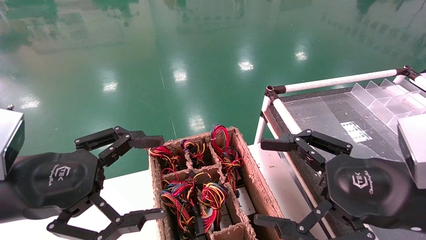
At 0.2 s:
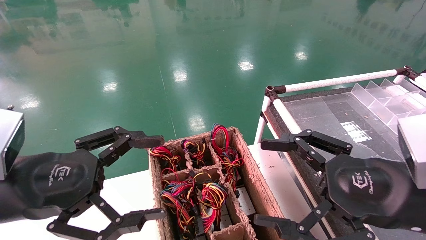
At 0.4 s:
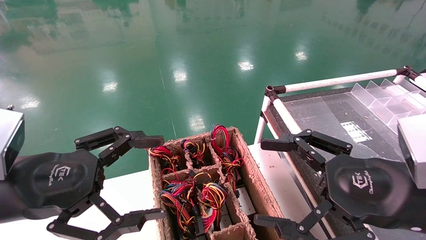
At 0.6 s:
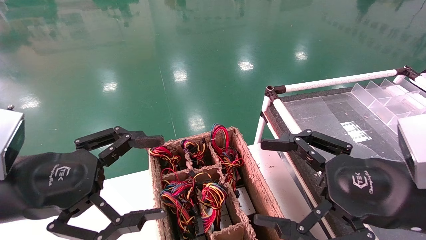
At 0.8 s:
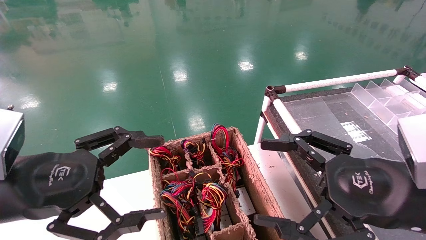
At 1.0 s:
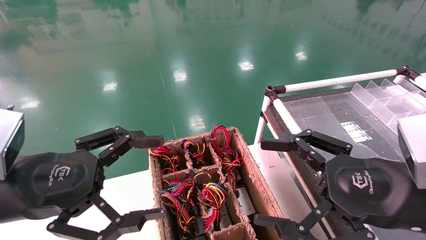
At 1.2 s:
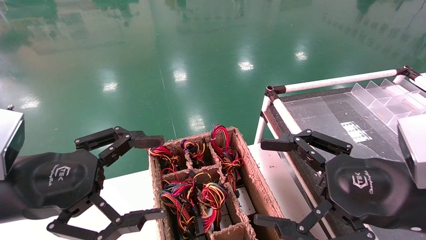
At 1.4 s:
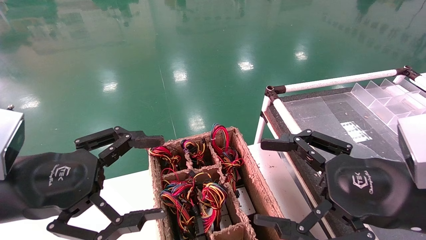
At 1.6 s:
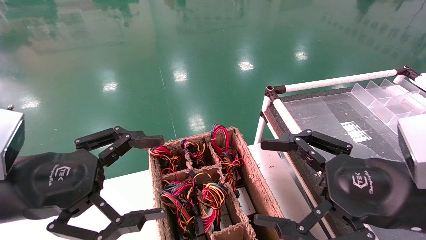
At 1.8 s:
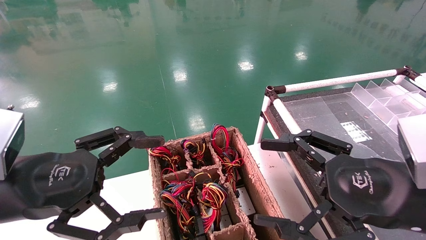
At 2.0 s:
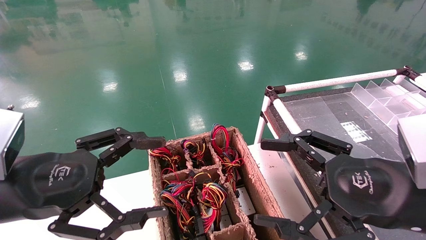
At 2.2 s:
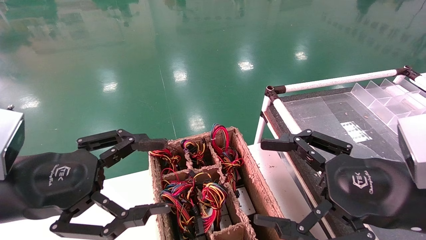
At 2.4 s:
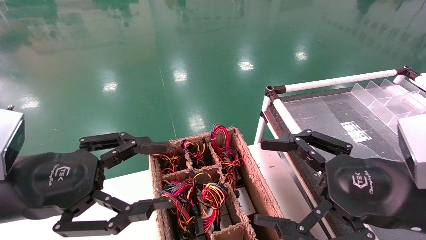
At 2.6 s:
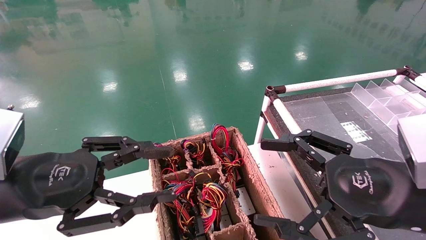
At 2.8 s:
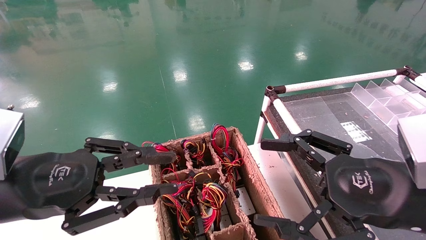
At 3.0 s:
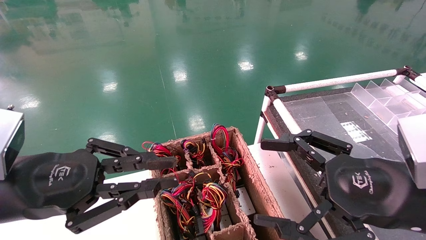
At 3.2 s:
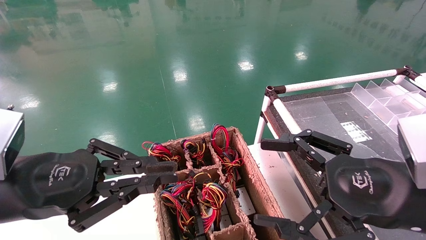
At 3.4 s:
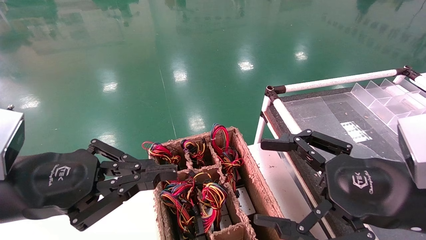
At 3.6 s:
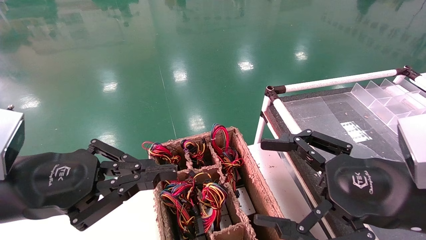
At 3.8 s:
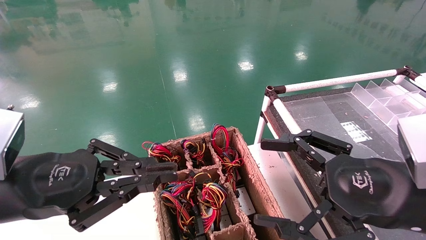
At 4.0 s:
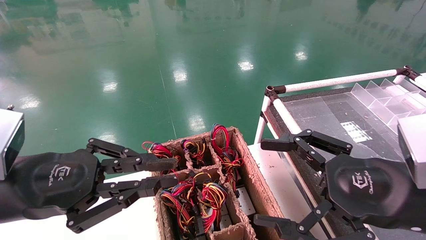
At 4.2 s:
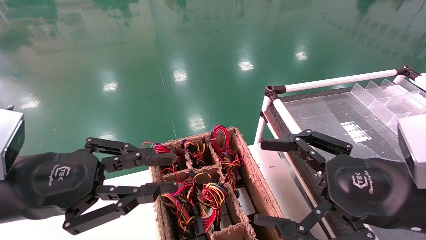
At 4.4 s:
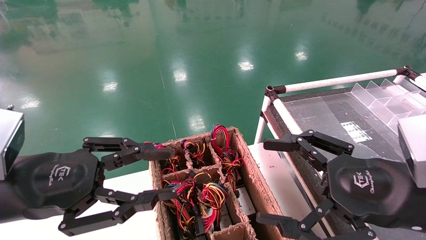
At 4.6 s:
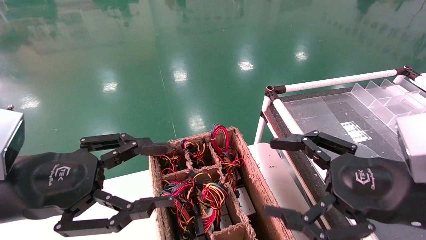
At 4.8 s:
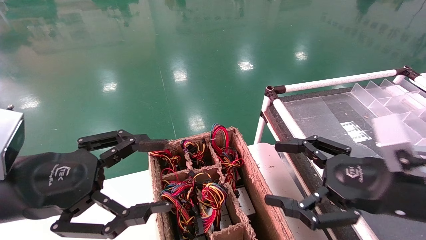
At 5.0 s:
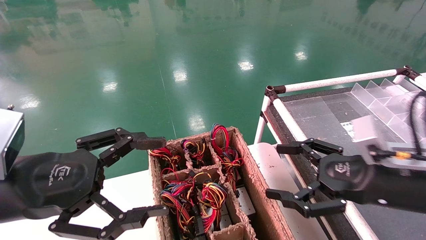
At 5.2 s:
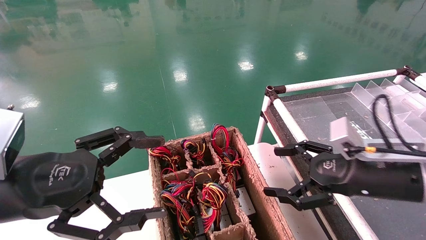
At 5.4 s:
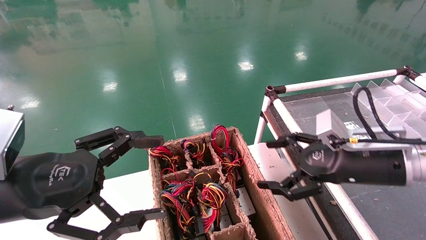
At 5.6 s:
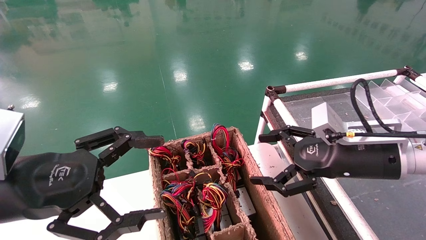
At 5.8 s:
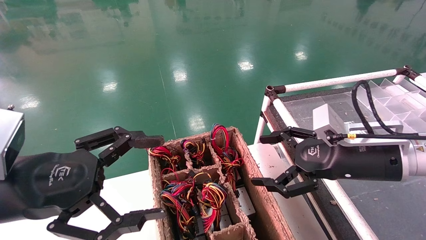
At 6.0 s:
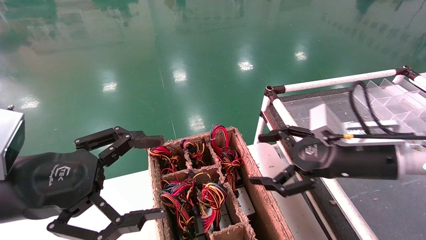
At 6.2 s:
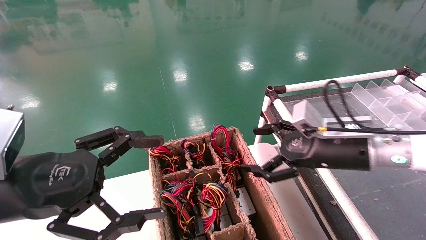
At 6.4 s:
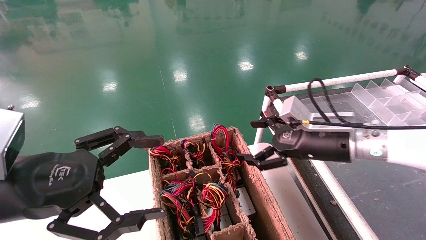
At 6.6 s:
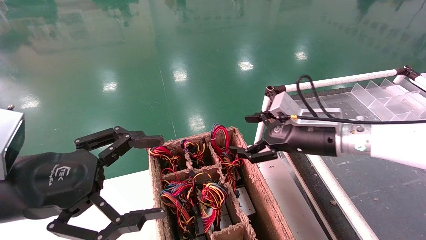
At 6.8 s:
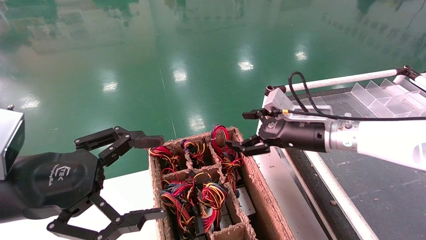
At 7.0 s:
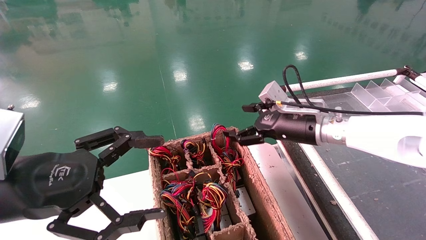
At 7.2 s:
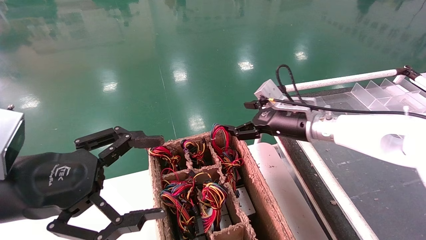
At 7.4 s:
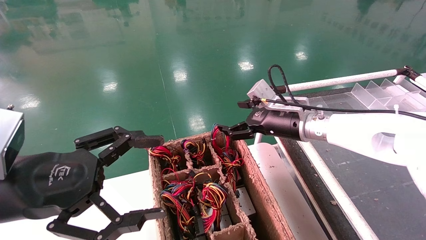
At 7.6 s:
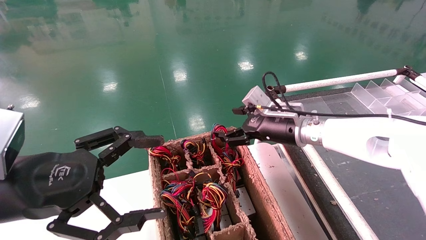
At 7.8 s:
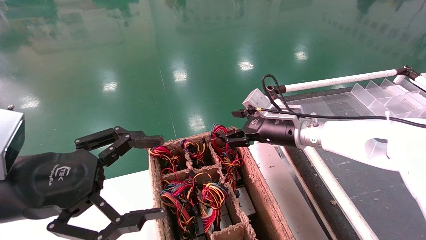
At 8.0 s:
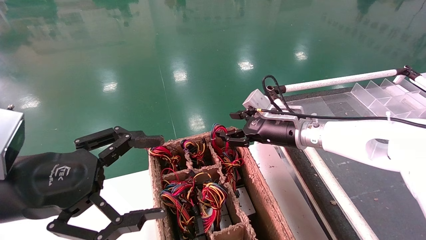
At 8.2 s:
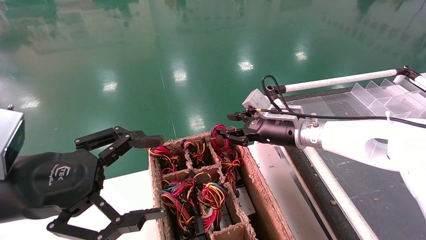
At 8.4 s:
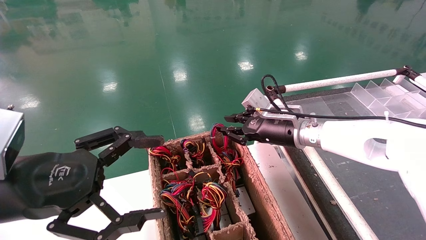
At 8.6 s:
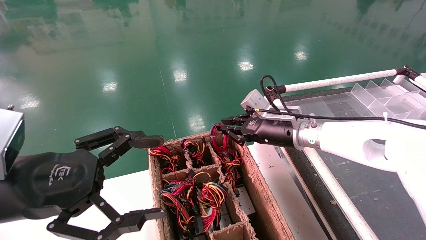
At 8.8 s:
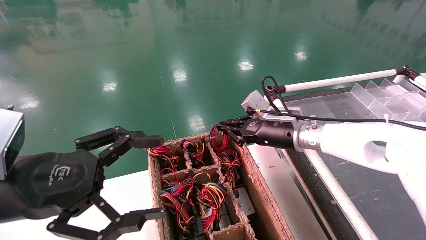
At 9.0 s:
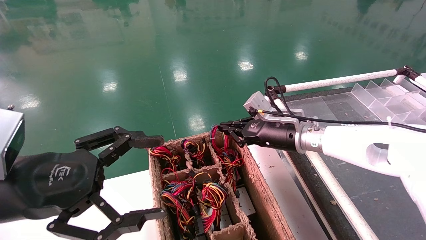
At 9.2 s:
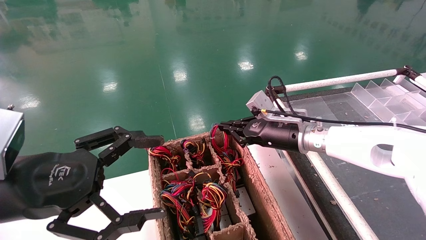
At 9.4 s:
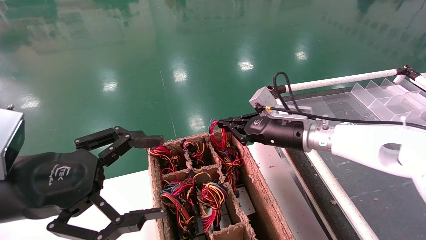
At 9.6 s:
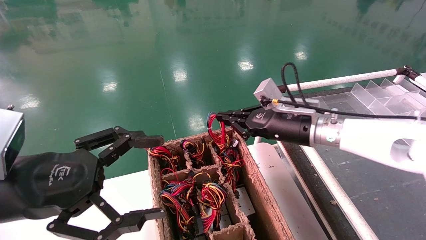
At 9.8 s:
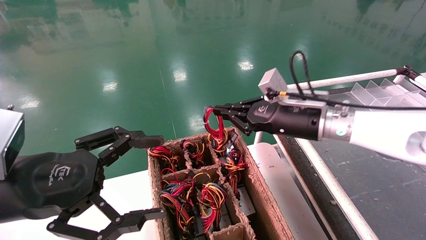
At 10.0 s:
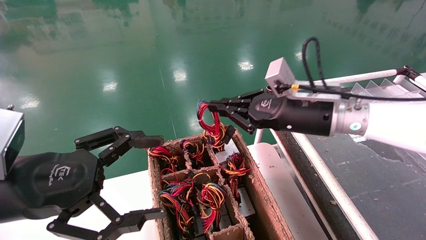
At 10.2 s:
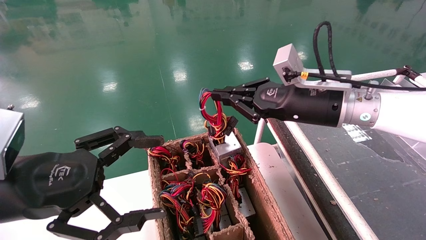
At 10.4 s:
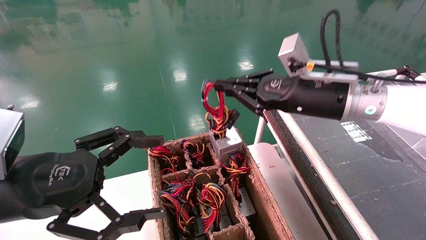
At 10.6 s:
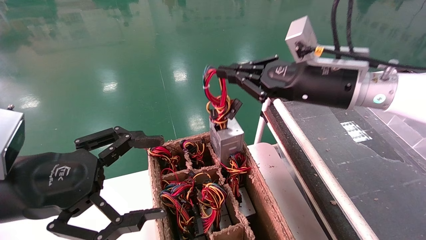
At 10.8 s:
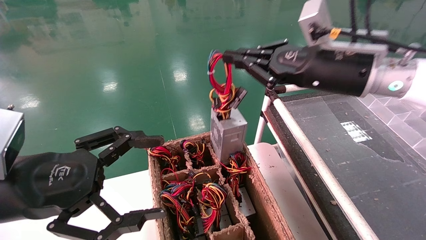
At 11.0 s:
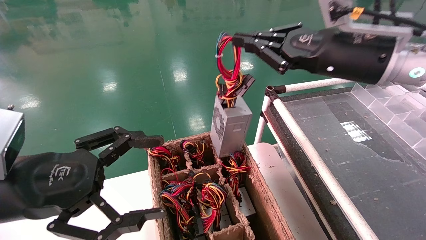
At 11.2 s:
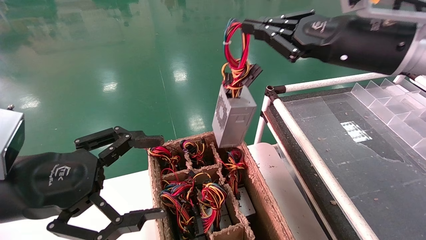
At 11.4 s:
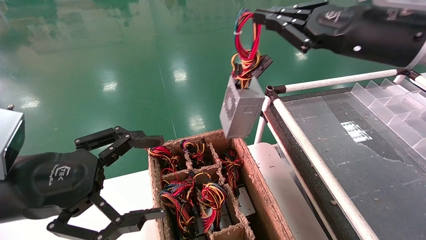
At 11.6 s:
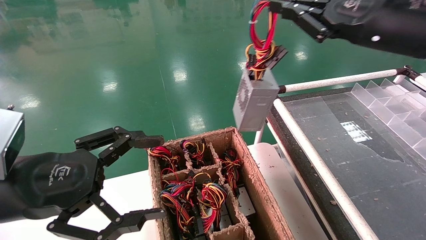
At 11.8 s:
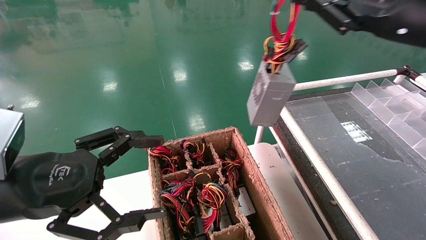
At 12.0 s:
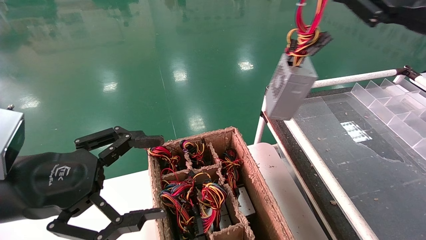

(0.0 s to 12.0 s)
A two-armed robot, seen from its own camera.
Step, 3.4 s - 9.0 s: Grab and lift the power supply from the large box.
0.0 s - 1.6 s: Neither gripper changes place.
1.6 s - 3.0 s: The left gripper closes its fingers.
3.0 s - 4.4 s: Neither gripper changes place.
4.4 s - 6.0 s: The left gripper opens its fingers. Meanwhile the right gripper shifts approximately 15 cm forward.
6.0 s - 7.6 s: The right gripper goes approximately 15 cm forward and to the left.
7.6 s - 9.0 s: The right gripper closes.
9.0 s - 10.4 s: The right gripper shifts roughly 15 cm upward and backward.
10.4 s - 12.0 s: The right gripper is displaced to the right, upward and backward by roughly 20 cm.

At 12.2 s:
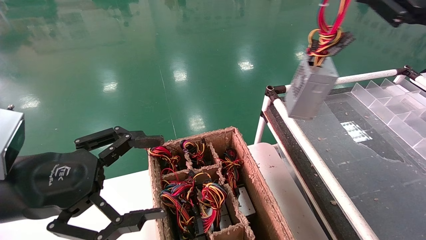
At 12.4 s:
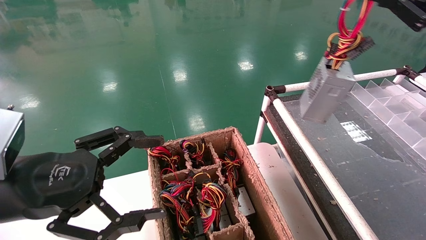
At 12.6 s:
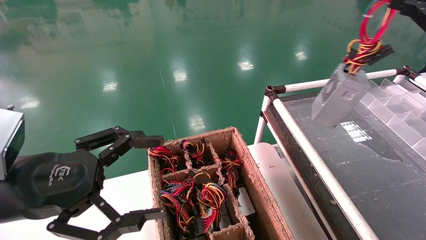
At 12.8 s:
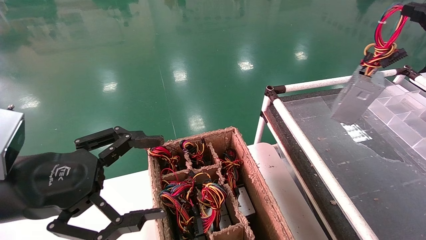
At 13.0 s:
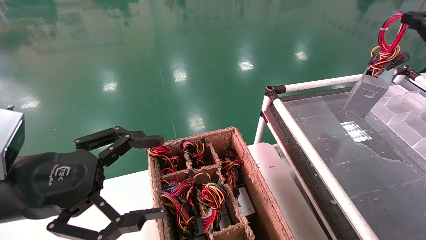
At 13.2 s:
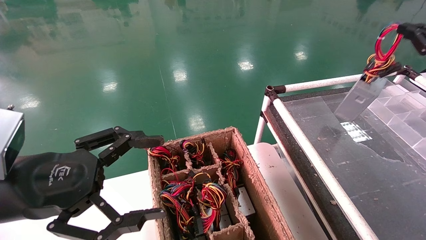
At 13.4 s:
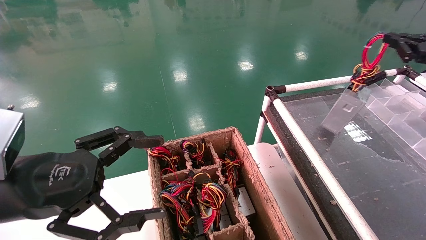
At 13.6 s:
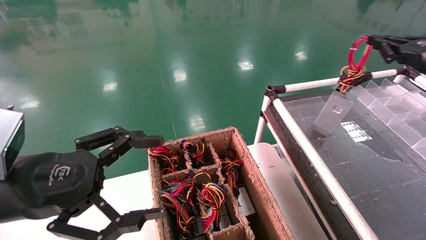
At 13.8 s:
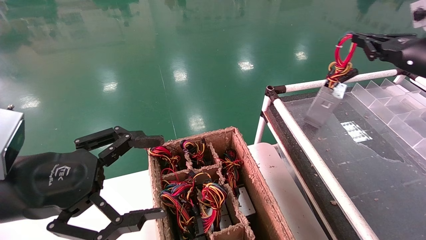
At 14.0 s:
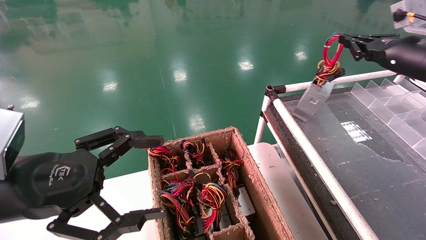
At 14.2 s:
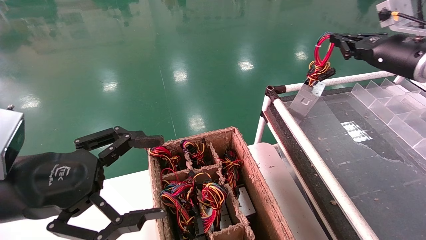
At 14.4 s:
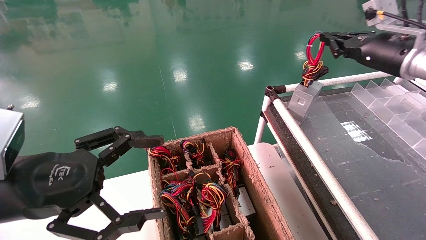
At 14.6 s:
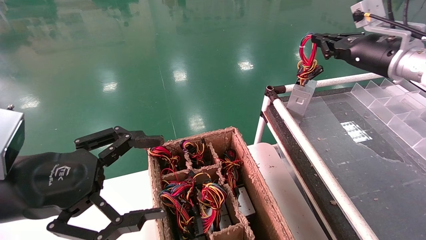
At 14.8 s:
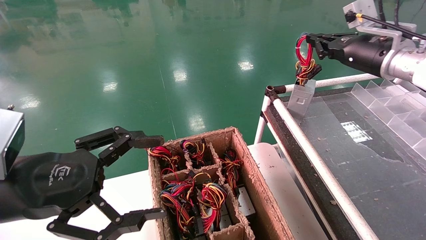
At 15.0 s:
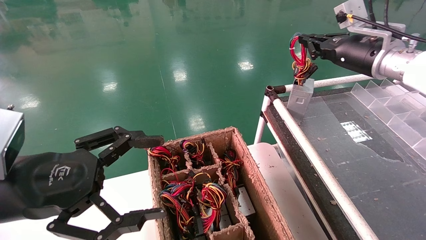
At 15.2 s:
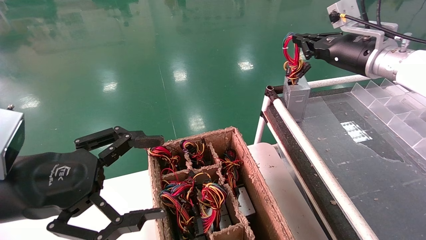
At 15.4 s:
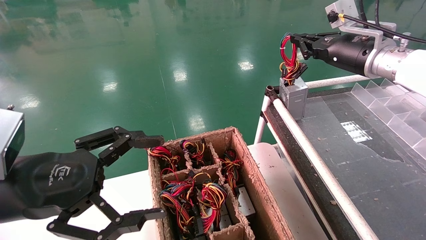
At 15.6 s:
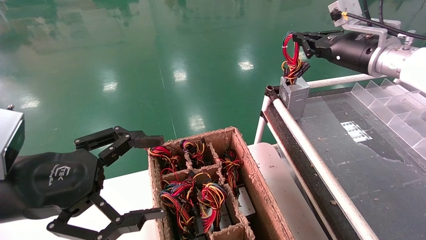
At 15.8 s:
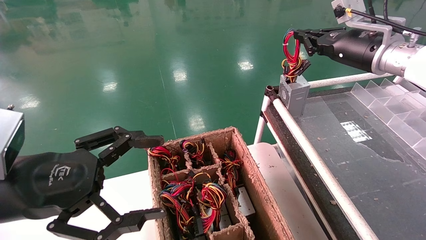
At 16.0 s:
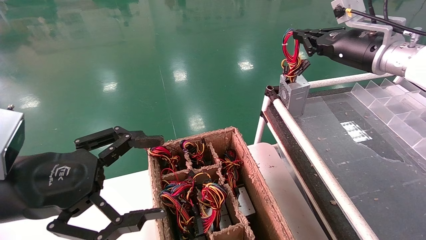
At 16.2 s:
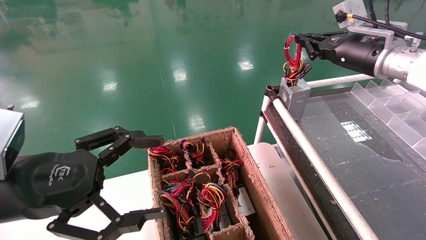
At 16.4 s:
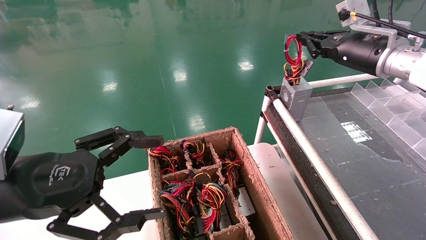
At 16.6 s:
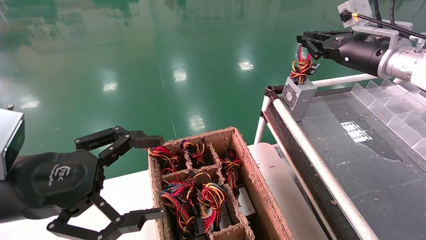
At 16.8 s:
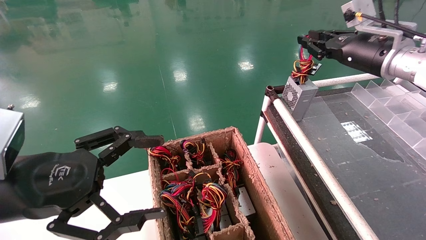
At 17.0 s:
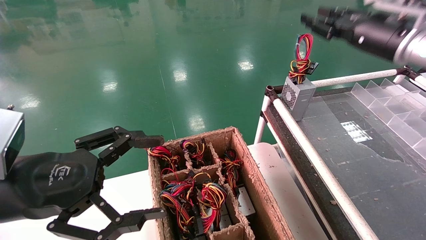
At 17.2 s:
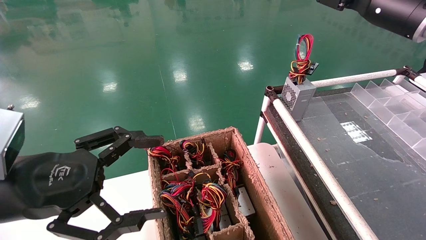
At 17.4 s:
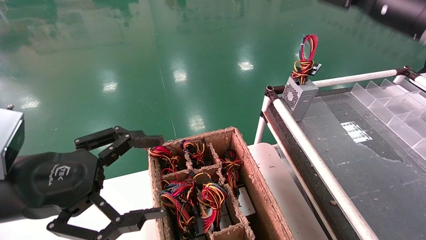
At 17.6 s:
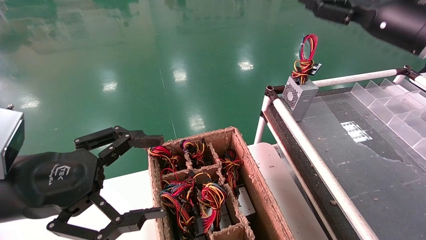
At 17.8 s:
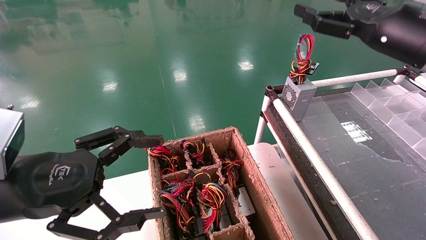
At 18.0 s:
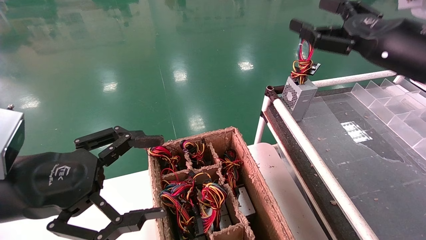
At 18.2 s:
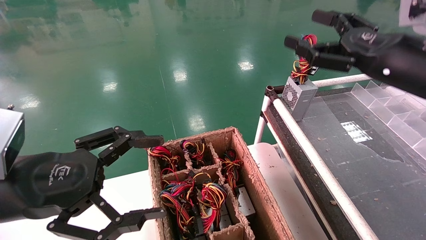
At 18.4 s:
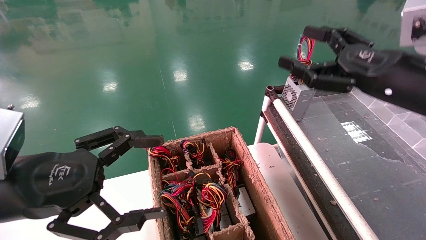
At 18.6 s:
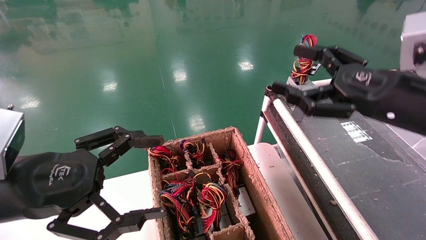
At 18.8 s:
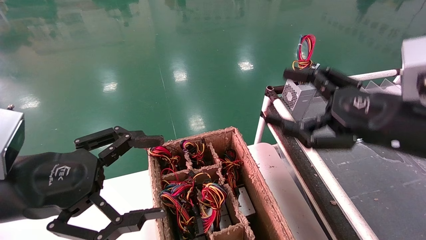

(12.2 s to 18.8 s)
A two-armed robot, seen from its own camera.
Step, 12.2 s - 16.4 s: Place the power supply on the operating table.
12.2 s - 13.8 s: The right gripper is displaced forward and downward by some 10 cm.
13.8 s - 15.4 s: The right gripper heads to the left, covering roughly 10 cm.
15.4 s - 17.2 s: The right gripper shifts by approximately 5 cm, and opens its fingers.
17.2 s - 18.8 s: The right gripper shifts about 20 cm backward and downward, and opens.
